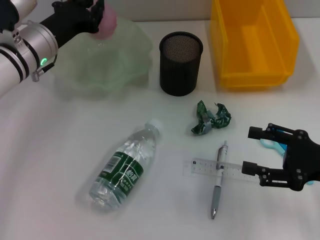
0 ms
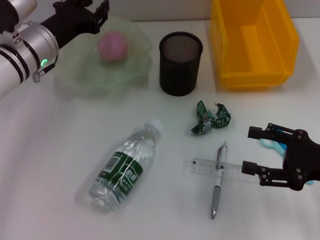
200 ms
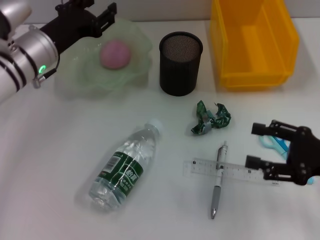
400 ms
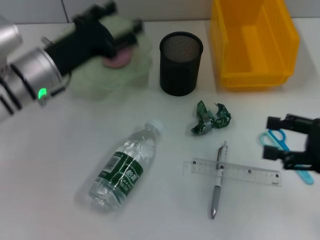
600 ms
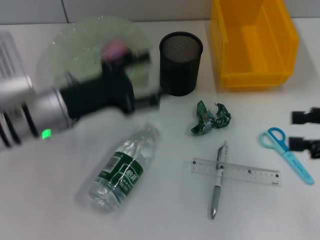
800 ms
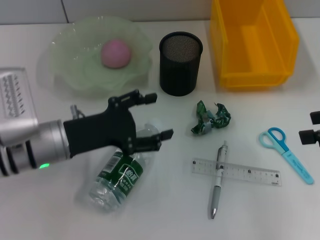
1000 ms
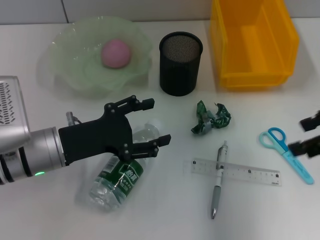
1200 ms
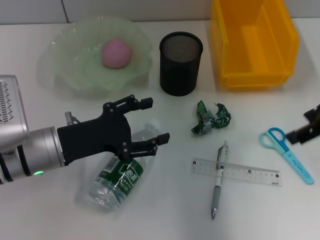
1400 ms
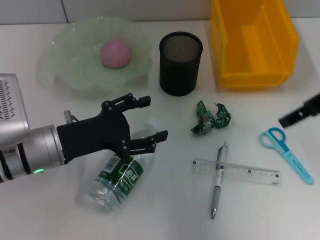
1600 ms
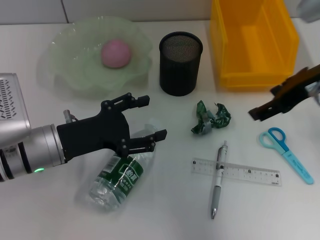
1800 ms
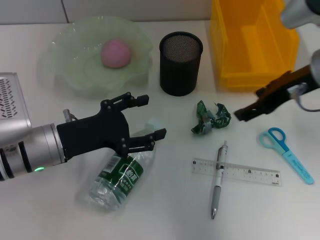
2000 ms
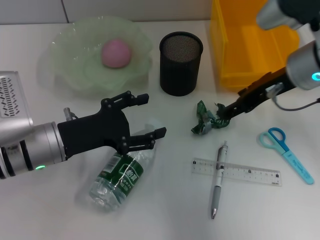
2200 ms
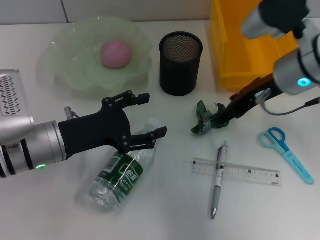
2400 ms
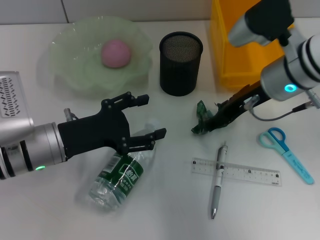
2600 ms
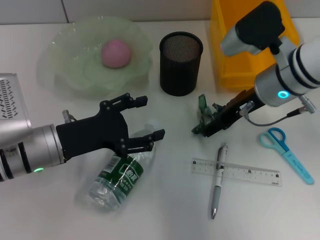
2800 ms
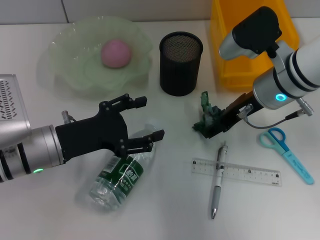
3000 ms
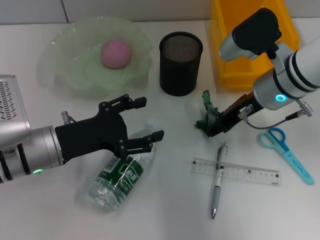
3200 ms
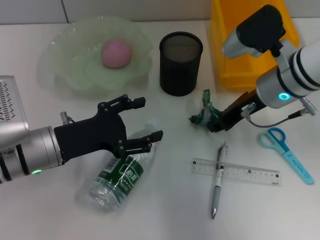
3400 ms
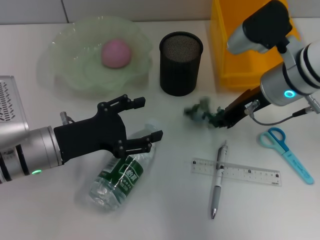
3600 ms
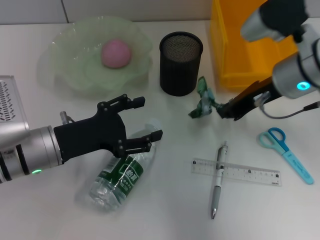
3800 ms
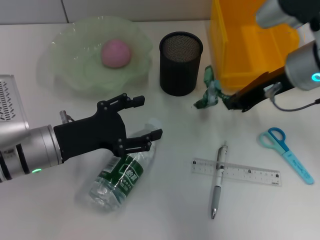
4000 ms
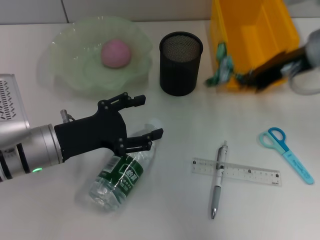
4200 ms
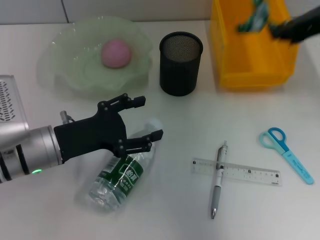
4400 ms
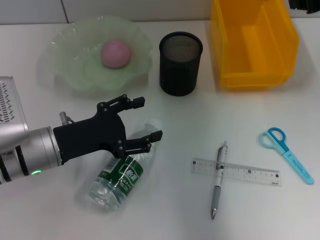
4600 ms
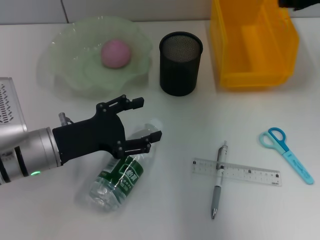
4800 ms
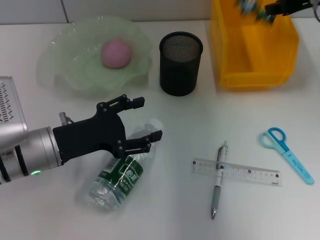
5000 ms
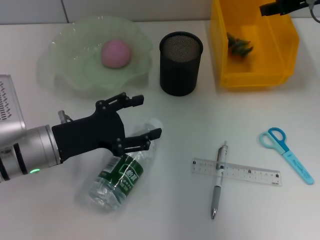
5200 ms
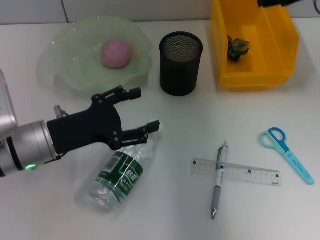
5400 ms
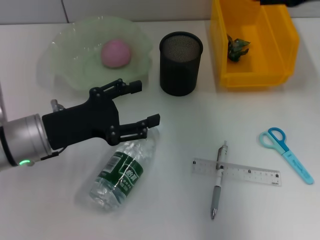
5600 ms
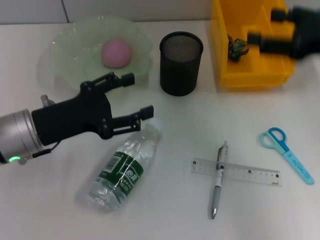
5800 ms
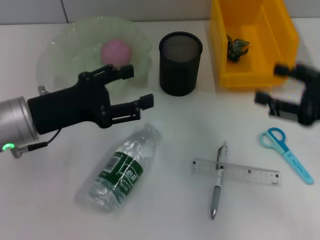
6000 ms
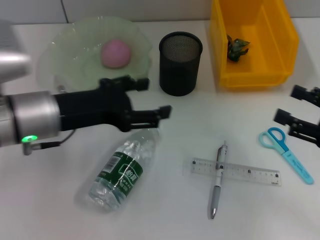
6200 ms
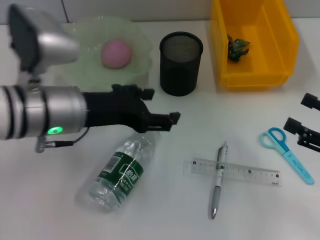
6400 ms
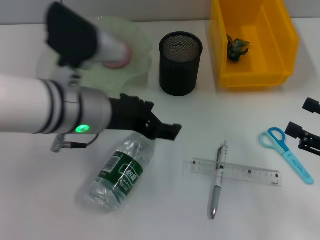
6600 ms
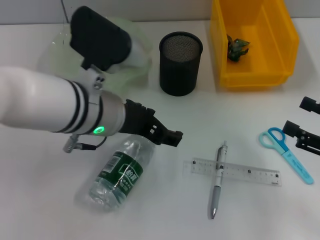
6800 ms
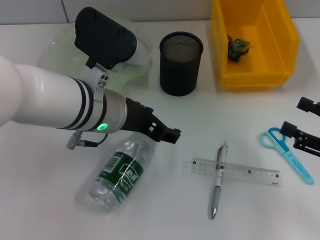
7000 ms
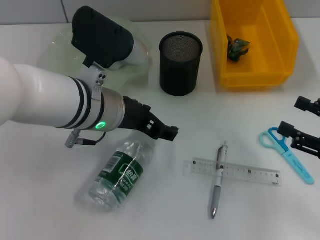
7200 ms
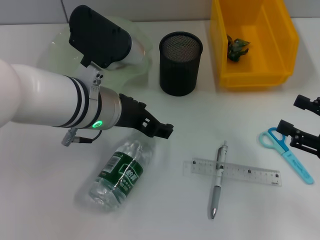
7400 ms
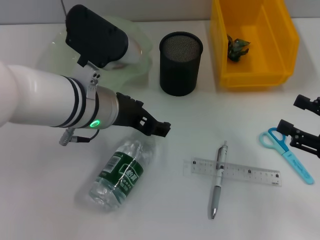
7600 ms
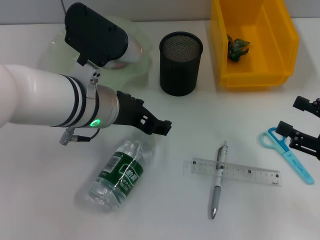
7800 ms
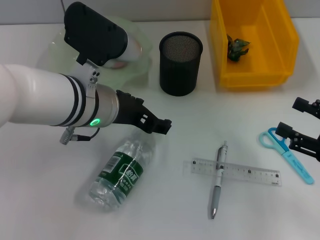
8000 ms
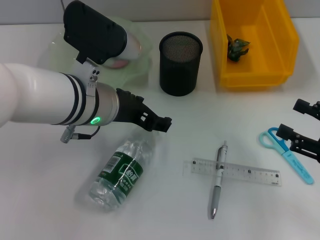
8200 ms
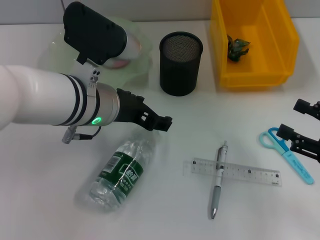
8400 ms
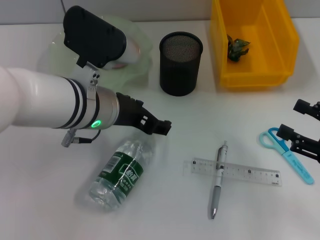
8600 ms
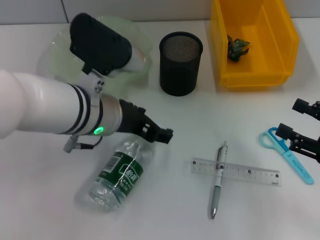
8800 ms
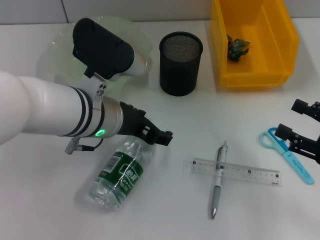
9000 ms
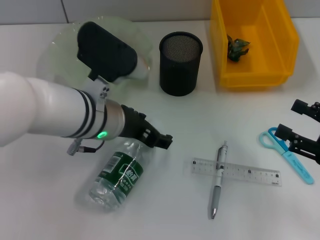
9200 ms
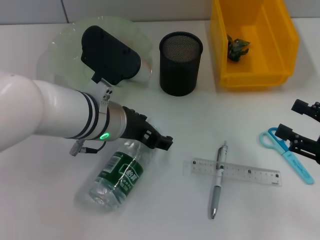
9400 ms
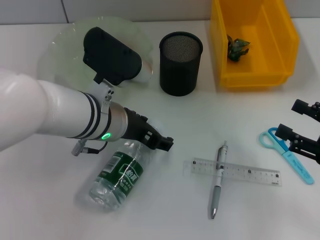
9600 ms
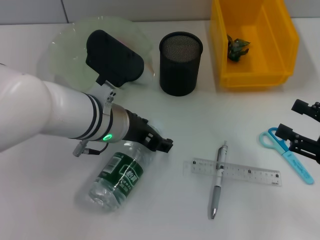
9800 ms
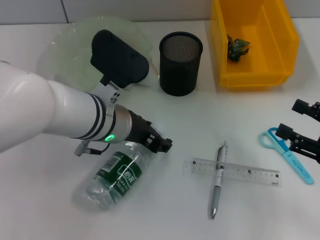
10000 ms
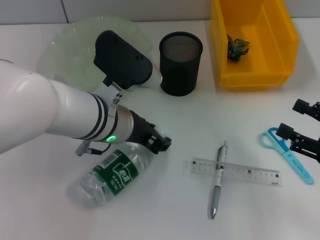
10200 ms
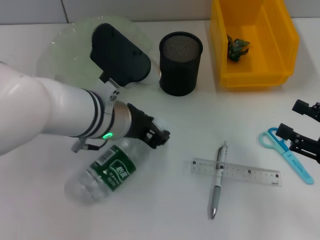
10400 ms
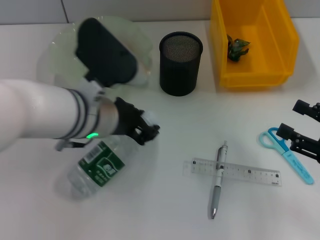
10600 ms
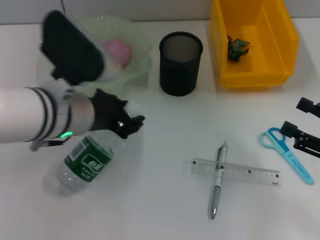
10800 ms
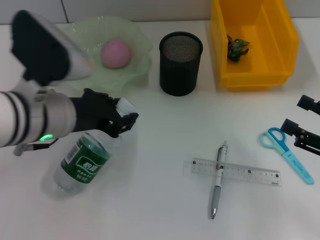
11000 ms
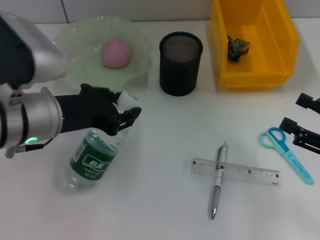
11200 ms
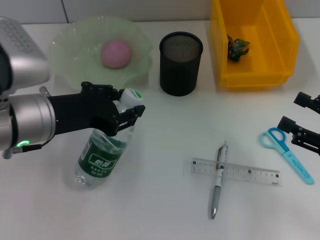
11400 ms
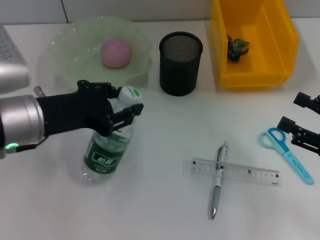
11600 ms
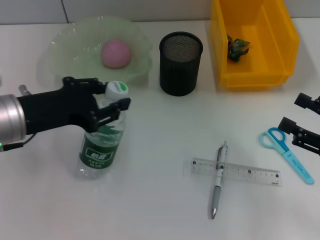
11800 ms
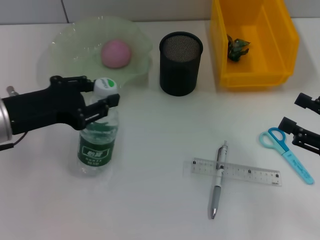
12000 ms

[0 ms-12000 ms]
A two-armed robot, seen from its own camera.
Step, 400 ms to 3400 ms: Grab the plastic with the right hand.
Step, 3600 ms to 5000 ms: Place the plastic into the trash can with the right hand.
Step, 5200 ms to 10200 ms: Grab the water bottle with the left hand.
0 ms to 1600 ms: The left gripper shifts about 15 cm backward, and opens its fingers. Meanwhile the right gripper travels upward and forward by about 20 cm.
1600 ms to 3000 ms: The right gripper travels downward and to the left by roughly 15 cm.
3000 ms to 4400 ms: The right gripper shifts some 15 cm upward and to the right, and closes.
4400 ms to 6000 ms: The left gripper travels upward by some 5 cm. The right gripper moves downward, backward and to the right, roughly 15 cm, and opens up.
6000 ms to 7600 ms: The right gripper travels downward by about 5 cm; the left gripper shifts some 10 cm to the right.
7600 ms to 9000 ms: Both grippers stay put.
9000 ms to 10400 ms: The left gripper closes its fingers.
10400 ms to 12000 ms: The left gripper is displaced to the left by about 15 cm.

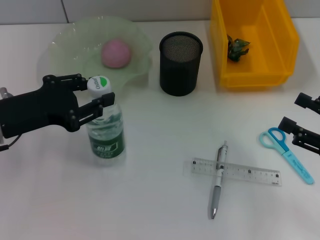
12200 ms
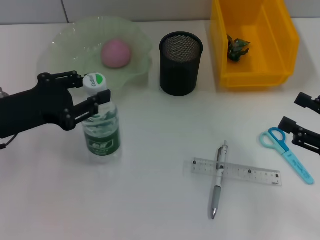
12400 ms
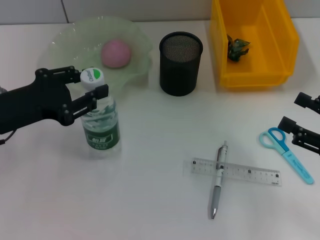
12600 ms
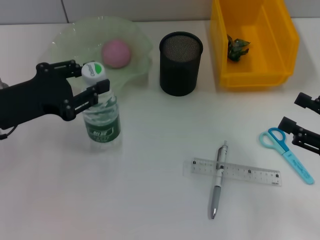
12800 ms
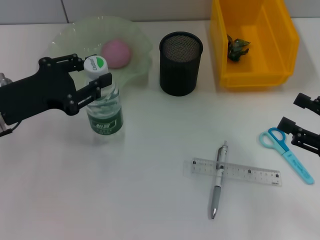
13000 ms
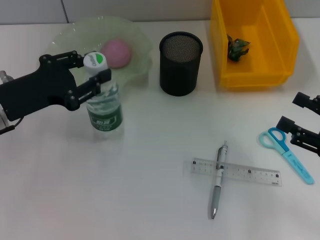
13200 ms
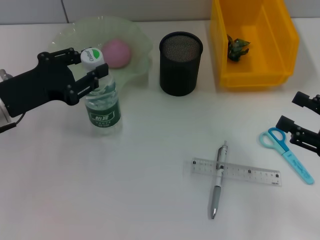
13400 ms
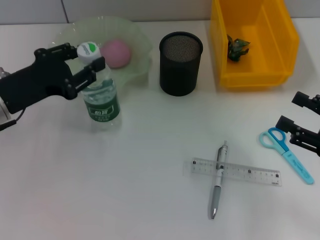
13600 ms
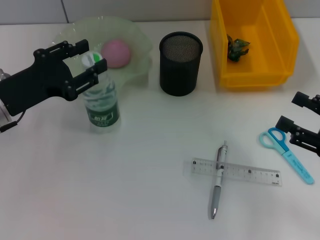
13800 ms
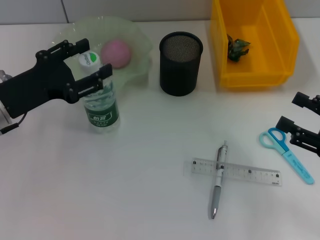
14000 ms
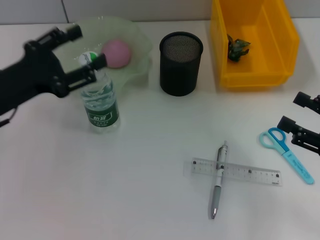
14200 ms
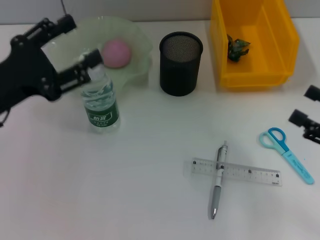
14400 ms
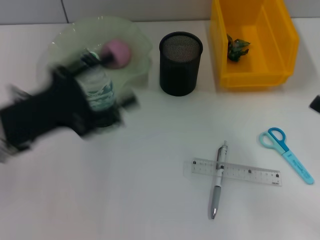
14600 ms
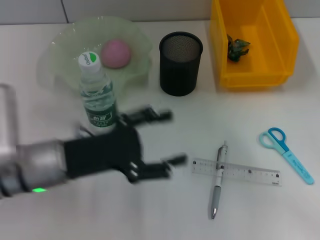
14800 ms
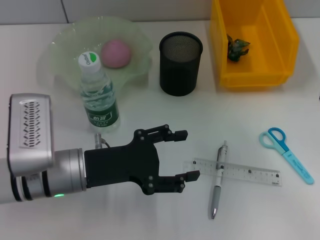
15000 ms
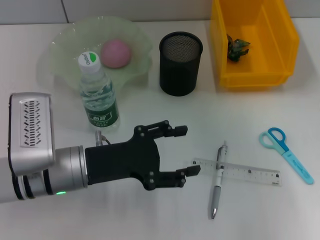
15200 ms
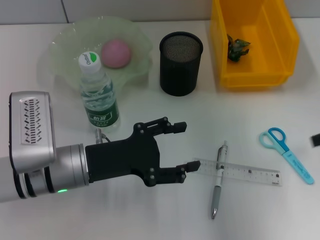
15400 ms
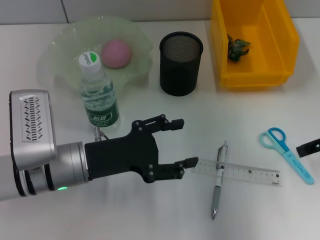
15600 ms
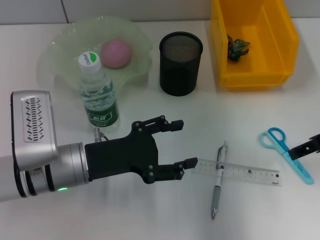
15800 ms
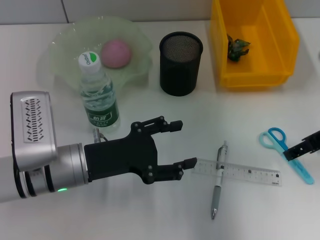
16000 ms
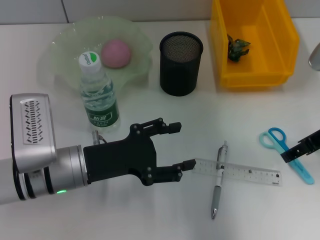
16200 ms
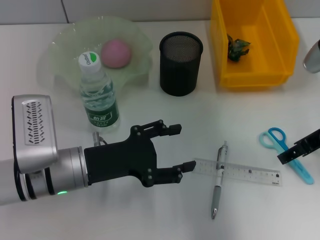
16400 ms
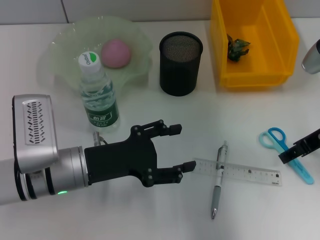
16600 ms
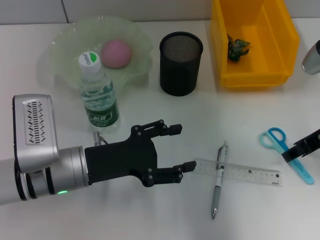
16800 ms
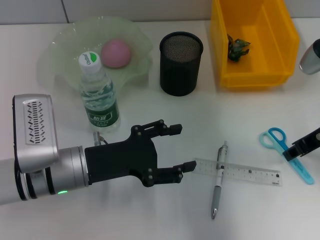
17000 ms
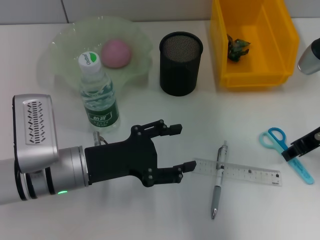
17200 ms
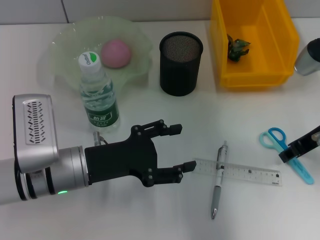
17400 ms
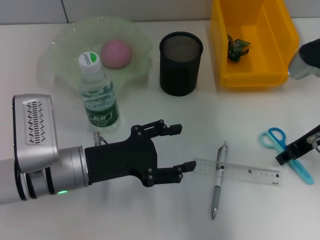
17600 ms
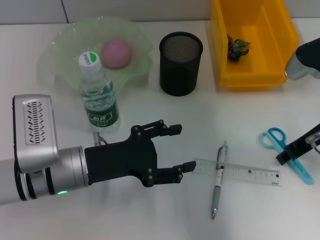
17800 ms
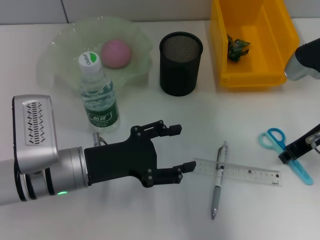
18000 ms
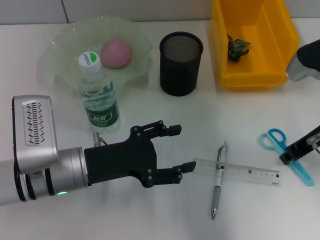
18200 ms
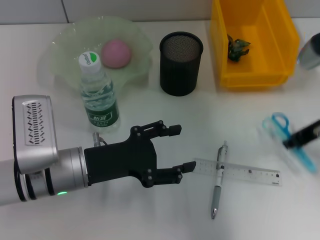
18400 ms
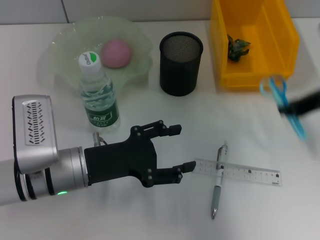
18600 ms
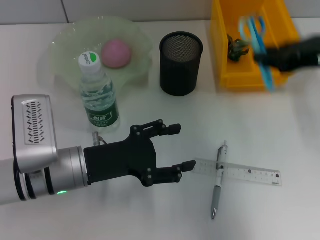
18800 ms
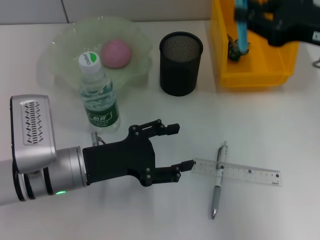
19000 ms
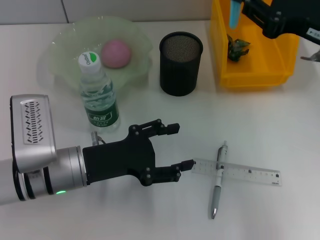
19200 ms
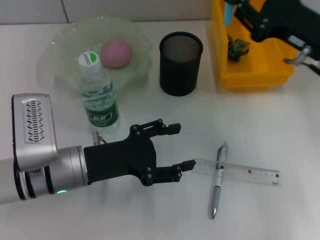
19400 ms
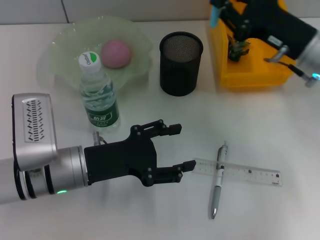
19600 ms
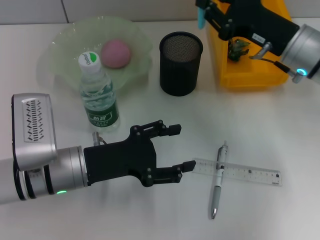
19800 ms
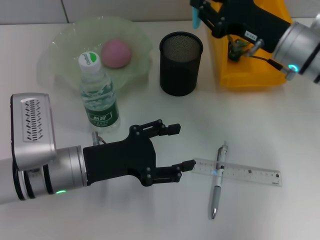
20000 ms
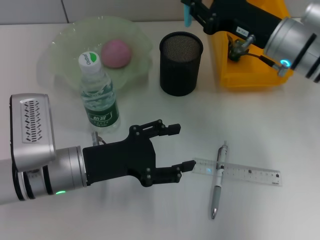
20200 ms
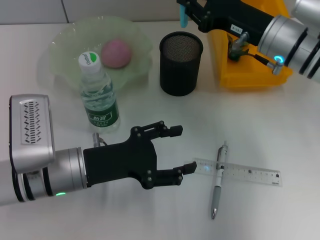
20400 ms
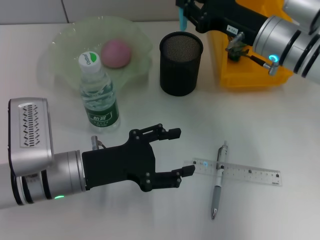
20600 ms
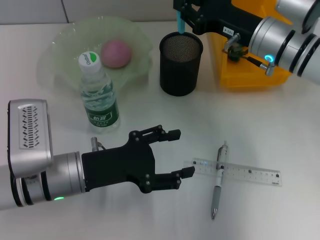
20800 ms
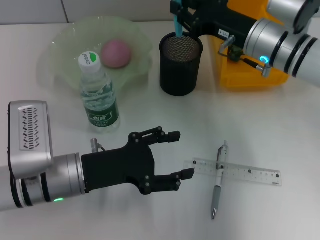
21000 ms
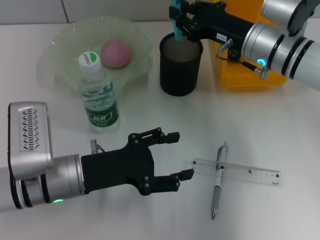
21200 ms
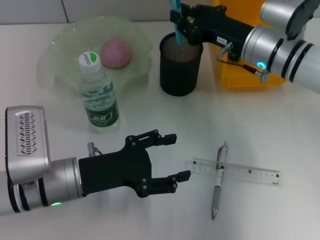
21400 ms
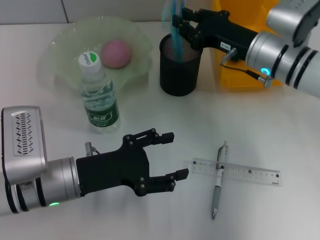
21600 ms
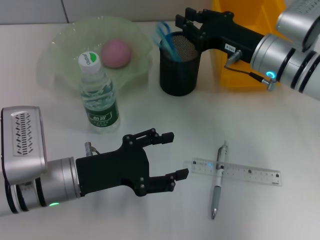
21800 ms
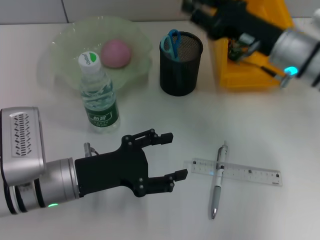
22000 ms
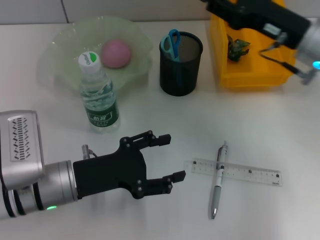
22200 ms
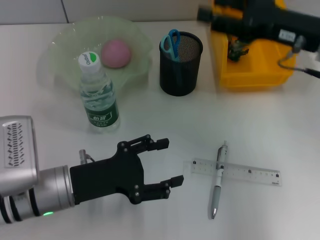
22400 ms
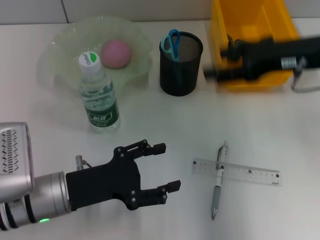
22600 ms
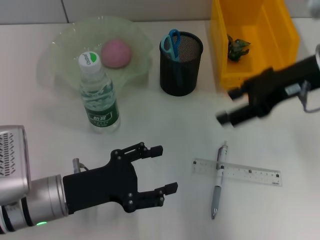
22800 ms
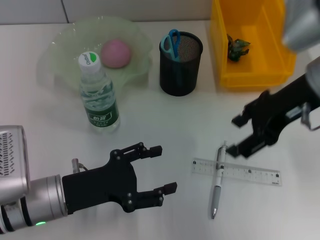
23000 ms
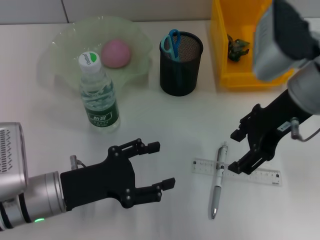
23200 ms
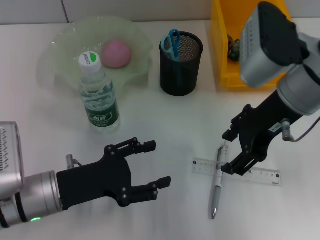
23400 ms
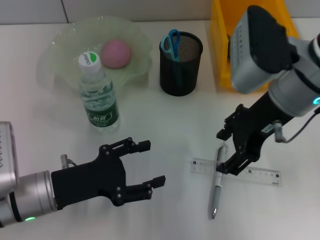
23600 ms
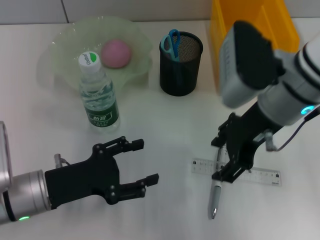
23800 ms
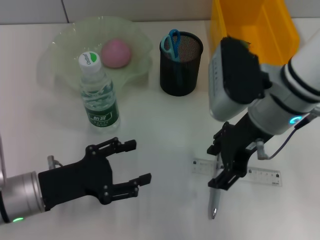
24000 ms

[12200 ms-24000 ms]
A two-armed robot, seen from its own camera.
Step, 12200 ms to 14000 ms: Place the water bottle on the table with the left hand.
Step, 14200 ms to 18000 ms: Grab the blue scissors with the right hand.
Step, 18200 ms to 21800 ms: Place the blue scissors into the pen holder with the right hand.
12200 ms to 13600 ms: The grippers make only small movements.
13600 ms to 15200 ms: The left gripper heads to the right, covering about 10 cm, while the right gripper shifts some 15 cm upward and forward.
15200 ms to 16600 ms: The right gripper moves to the left, downward and forward, roughly 15 cm.
16600 ms to 18200 ms: The right gripper closes up.
18200 ms to 19600 ms: The right gripper moves some 10 cm upward and comes back.
19600 ms to 21000 ms: The right gripper changes place by about 5 cm.
21000 ms to 22600 ms: The right gripper moves upward, backward and to the right, roughly 10 cm, and opens up.
22600 ms to 24000 ms: The right gripper travels to the left by about 10 cm.
